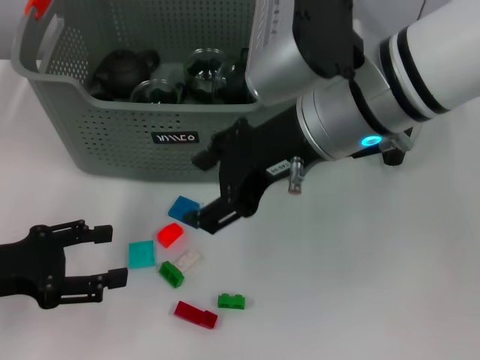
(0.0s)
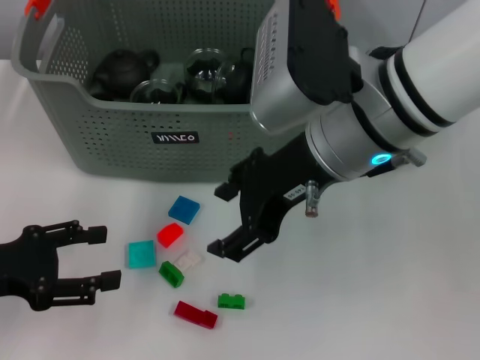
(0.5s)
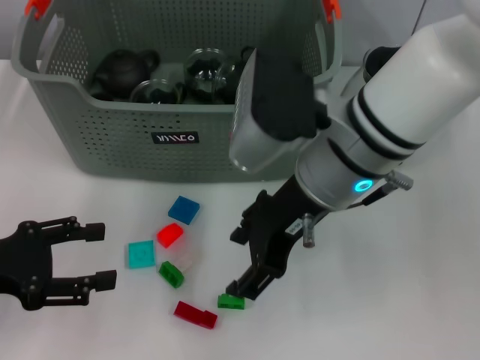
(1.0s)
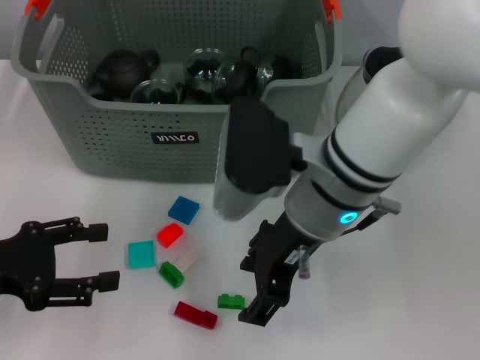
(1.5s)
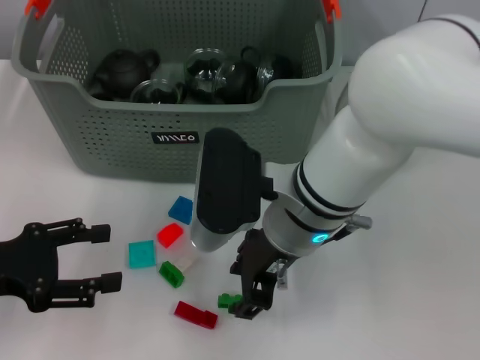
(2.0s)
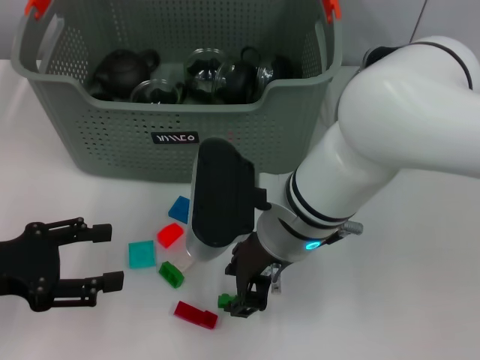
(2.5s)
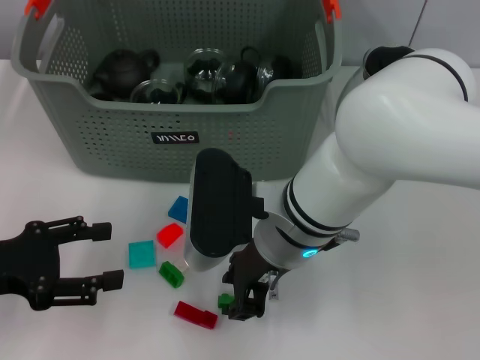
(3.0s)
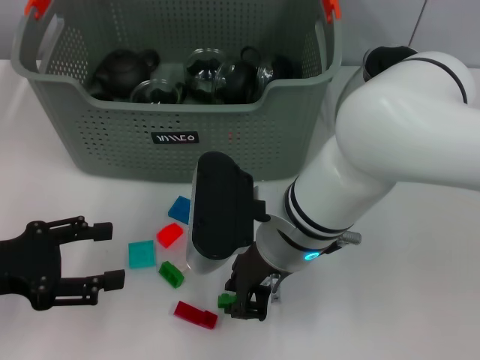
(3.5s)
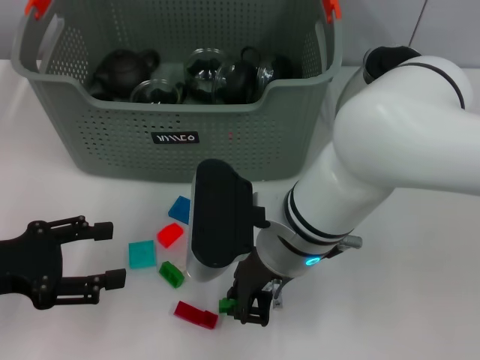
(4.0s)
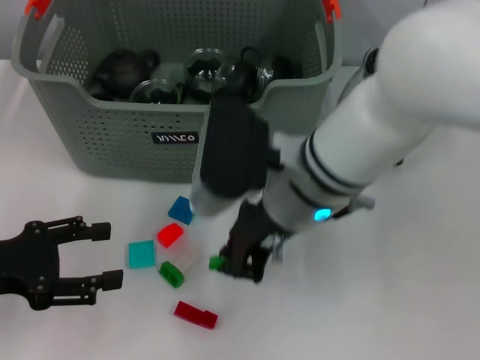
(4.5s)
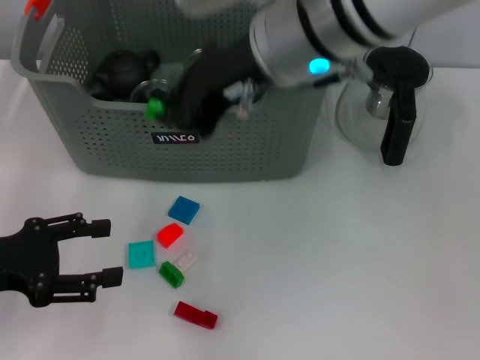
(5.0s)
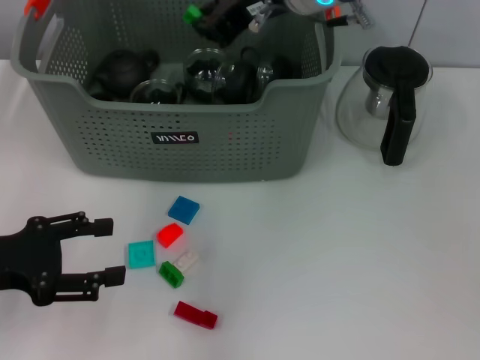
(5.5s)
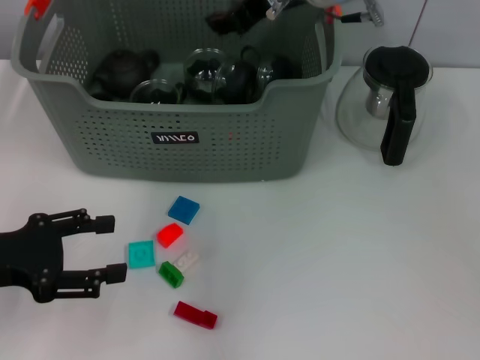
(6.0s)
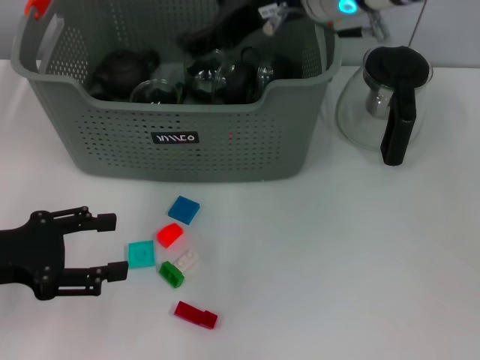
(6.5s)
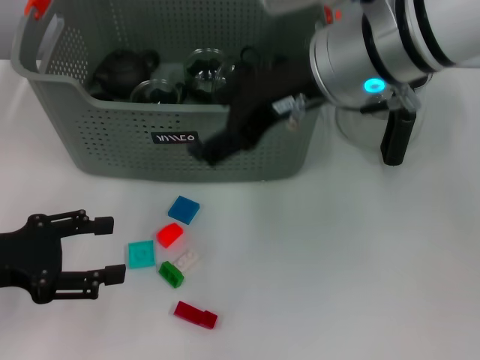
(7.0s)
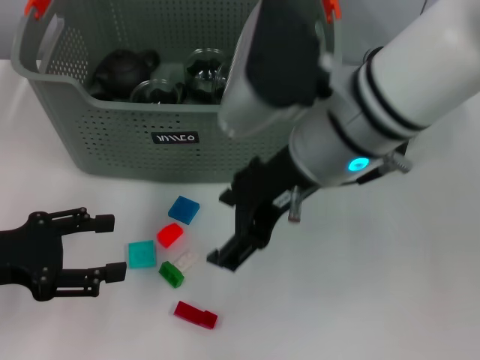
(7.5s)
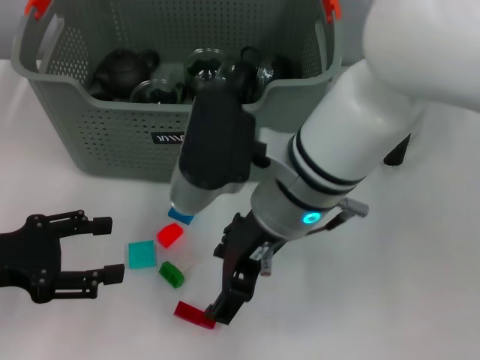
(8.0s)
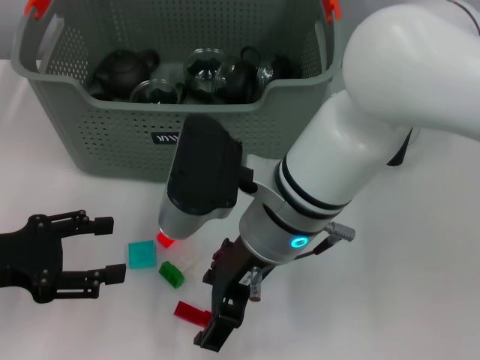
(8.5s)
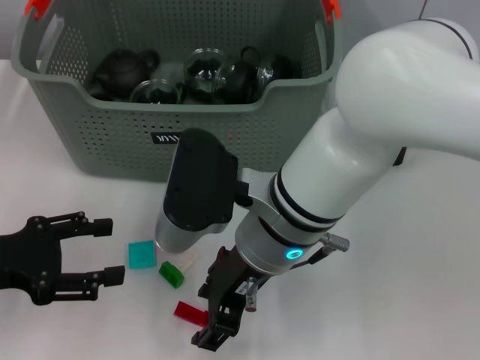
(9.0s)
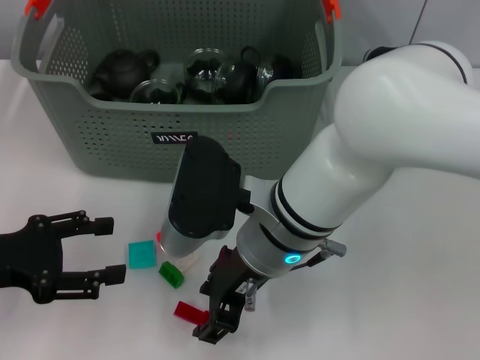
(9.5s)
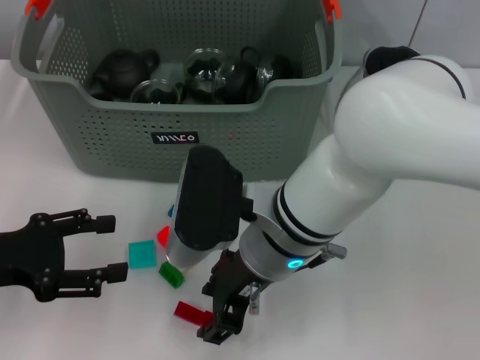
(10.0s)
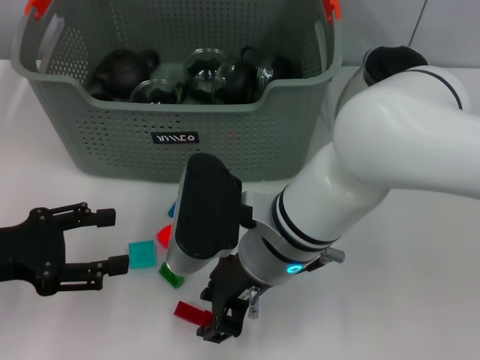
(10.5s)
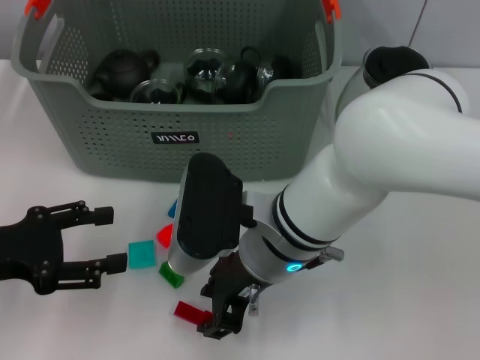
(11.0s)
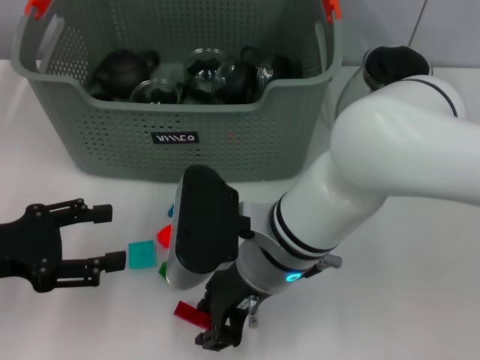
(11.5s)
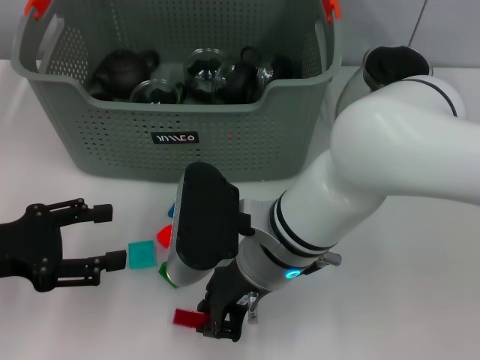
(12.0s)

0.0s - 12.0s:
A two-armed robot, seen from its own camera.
Task of the whole recording: pick up the teacup on the table and place it into the storage bin, pick up the block on the table and place it into the storage bin.
Step, 0.0s - 3.5s: Grasp the green block with right gripper.
Step, 4.0s - 5.5s: Place the green block in the storage box with right gripper.
0.0s - 2.0s: The right gripper is displaced downward by about 10 cm.
2.0s - 4.0s: The right gripper closes.
4.0s - 6.0s: The right gripper is displaced upward and forward by approximately 20 cm.
6.0s - 8.0s: The right gripper shifts about 15 cm backward and downward, and opens.
8.0s - 10.0s: The right gripper moves downward, roughly 5 cm.
10.0s - 12.0s: The two grippers keep their place.

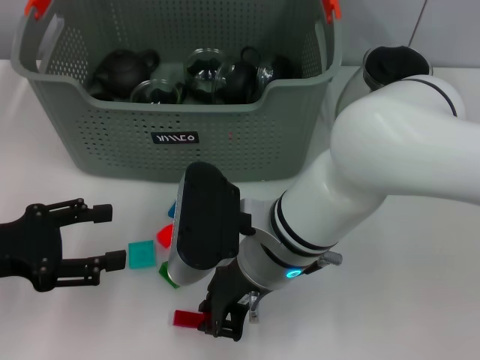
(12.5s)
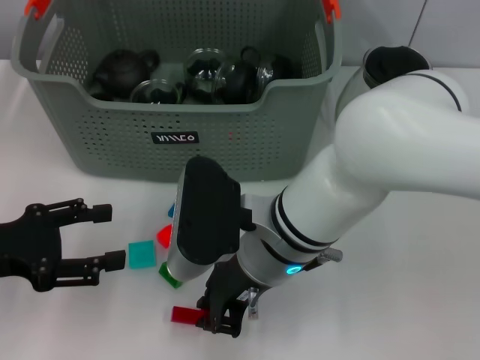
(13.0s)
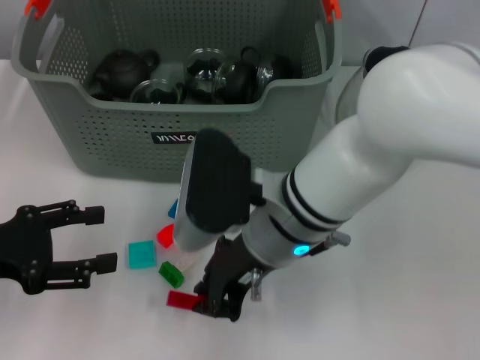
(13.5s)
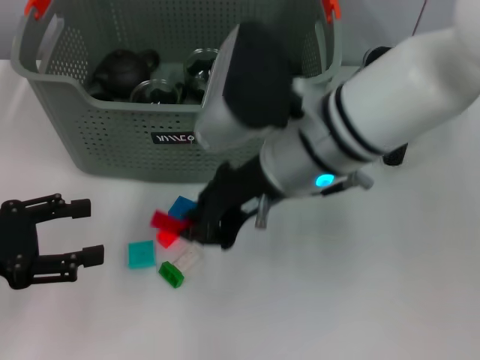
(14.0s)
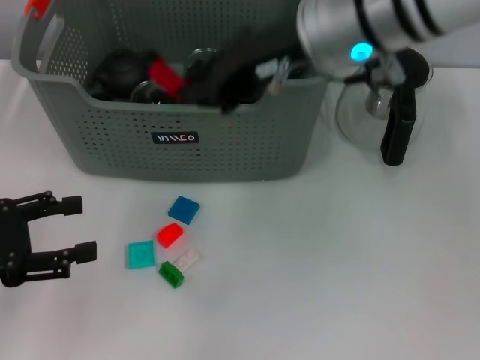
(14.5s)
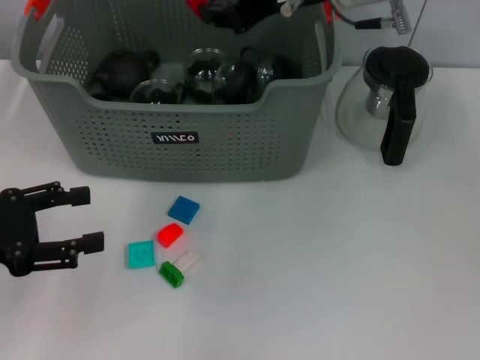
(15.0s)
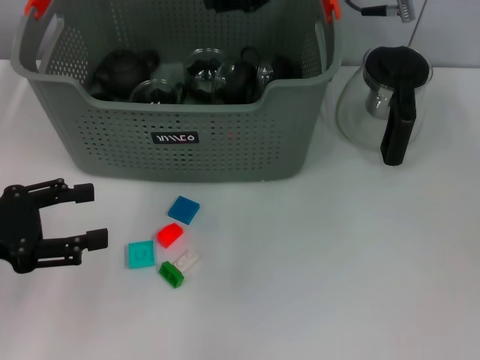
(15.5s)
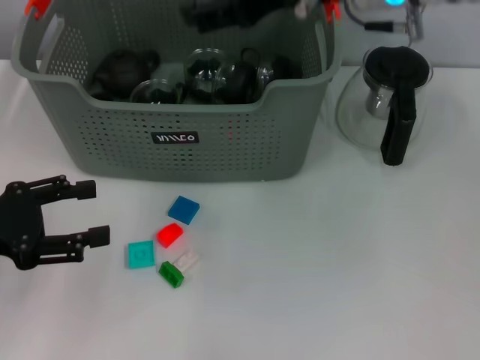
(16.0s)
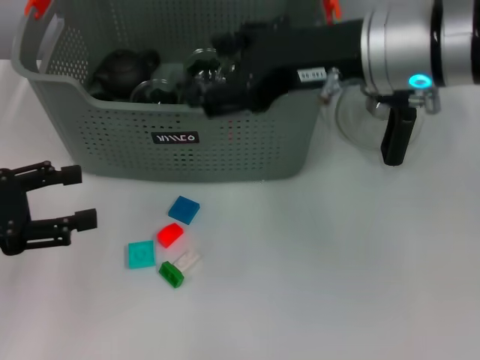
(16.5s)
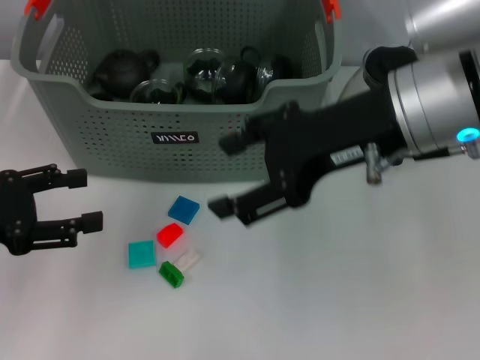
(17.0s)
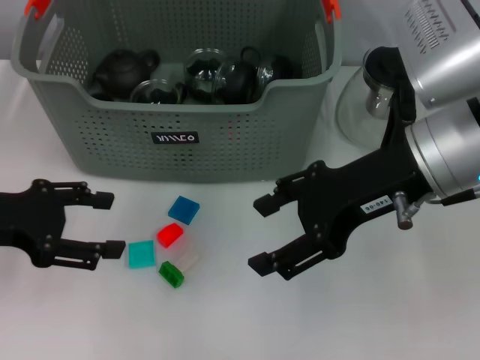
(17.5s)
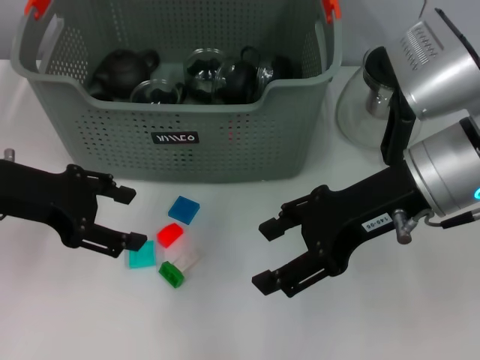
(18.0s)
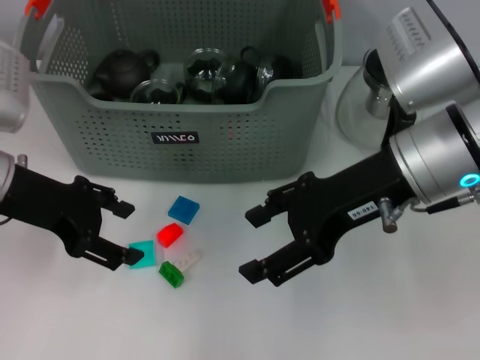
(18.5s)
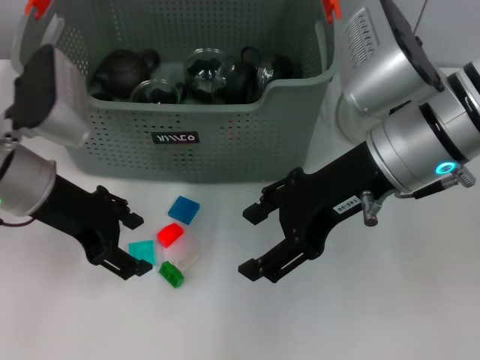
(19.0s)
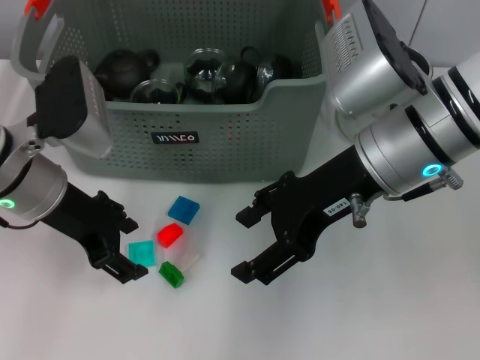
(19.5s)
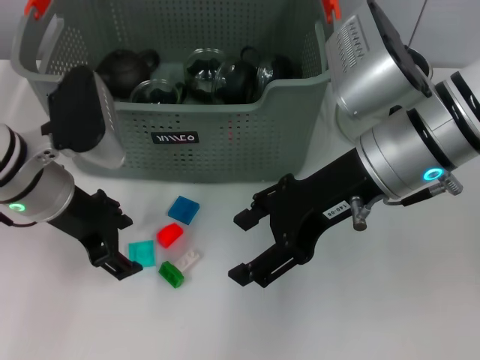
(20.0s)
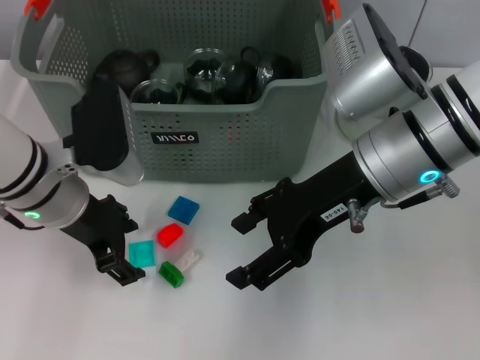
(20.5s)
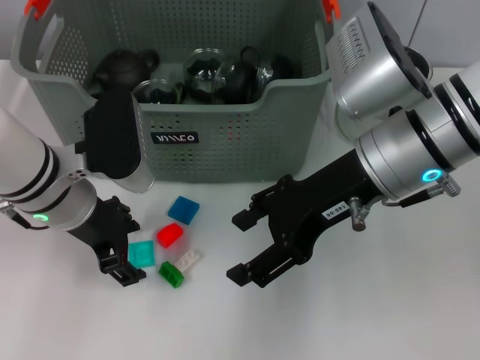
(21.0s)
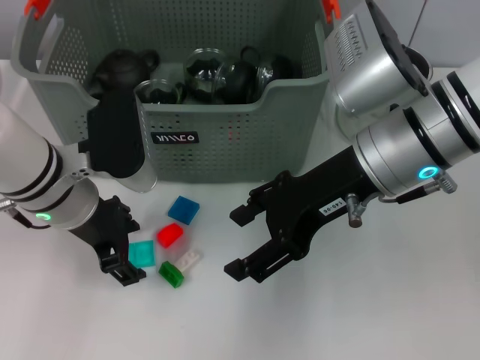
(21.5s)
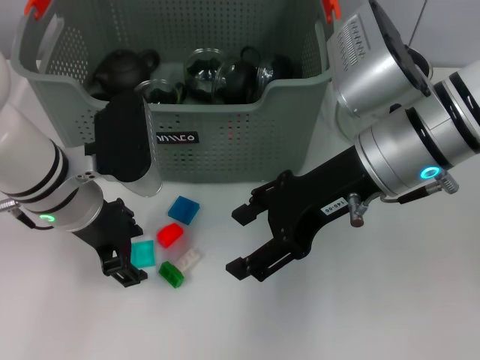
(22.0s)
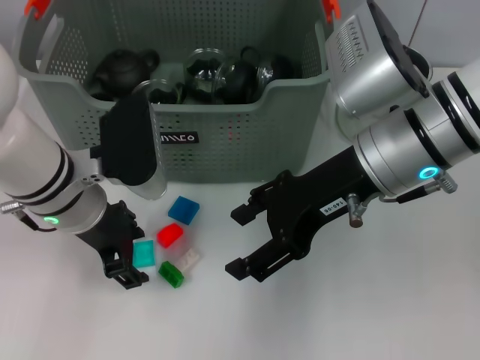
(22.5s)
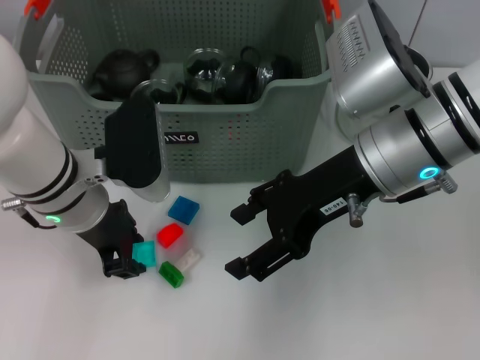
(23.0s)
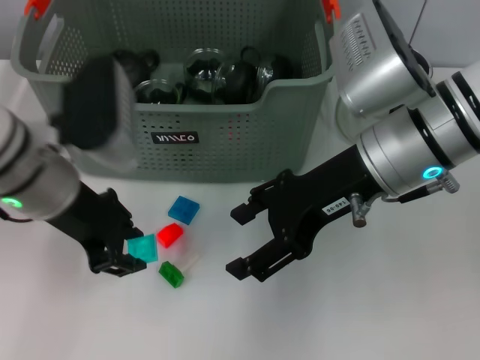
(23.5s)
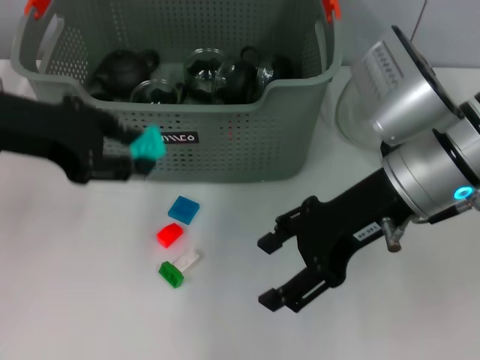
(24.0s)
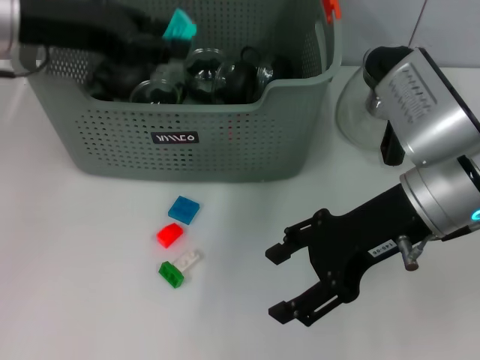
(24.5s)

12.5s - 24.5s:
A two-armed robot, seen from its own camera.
Task of the whole recording: pick up the teacup on the table and place it into the storage bin, pick up the block on the table and place it into the storage bin.
Step, 13.0s - 15.0s: Place the red block in the storage box with right gripper.
Step, 16.0s - 23.0s: Grasp the light blue block with left gripper.
12.5s - 14.5s: The right gripper is displaced upward and forward by roughly 15 cm.
14.5s - 16.5s: The right gripper changes place by approximately 5 cm, and opens.
16.5s - 18.5s: The right gripper ends up some 5 cm from where it was. Meanwhile the left gripper travels to the right and forward by approximately 10 cm.
18.5s - 20.5s: The left gripper travels to the right by some 5 cm.
20.5s - 22.5s: The grippers make only small movements.
22.5s - 24.5s: The left gripper moves upward and to the left, some 15 cm.

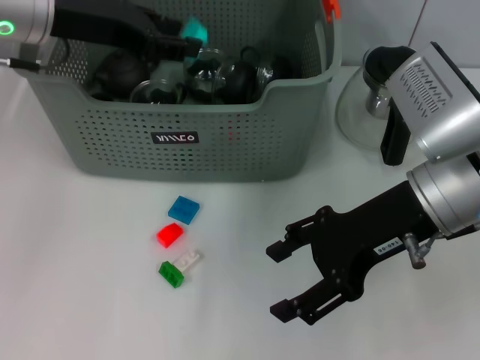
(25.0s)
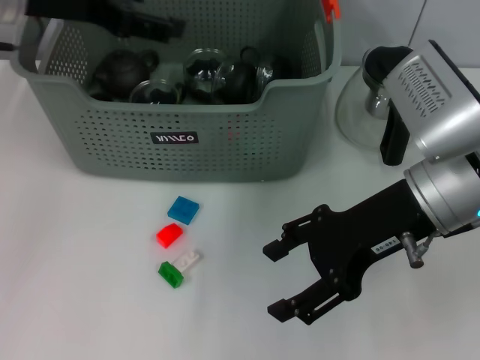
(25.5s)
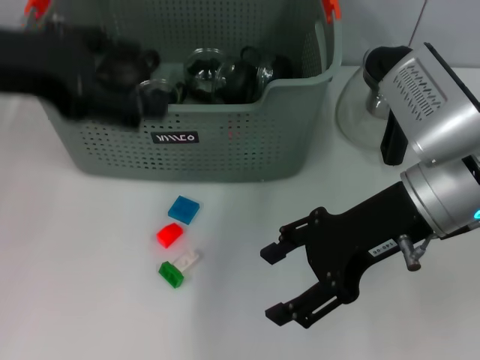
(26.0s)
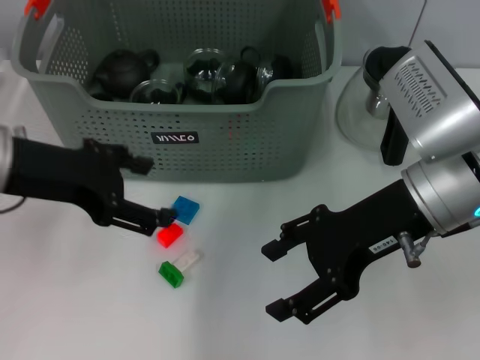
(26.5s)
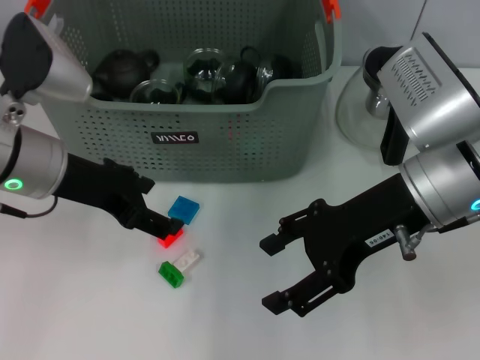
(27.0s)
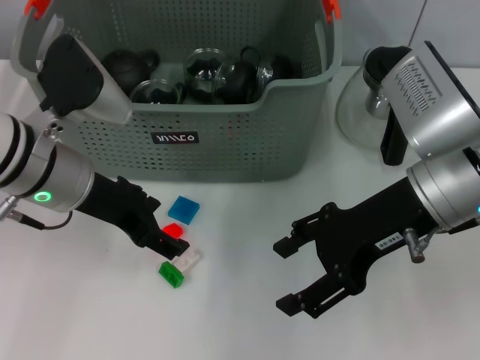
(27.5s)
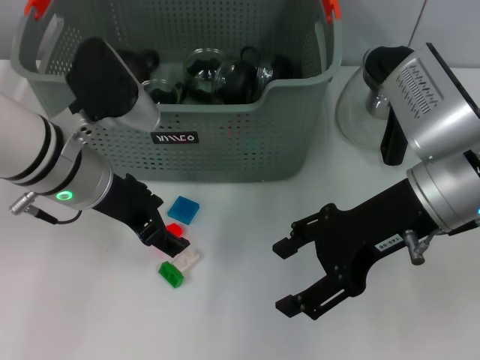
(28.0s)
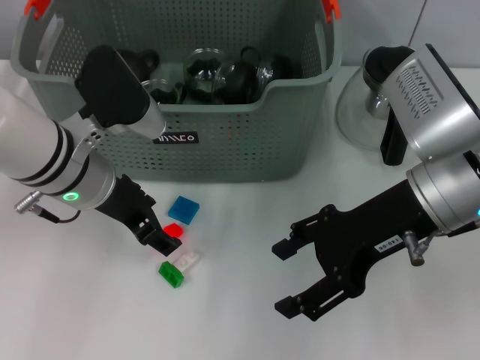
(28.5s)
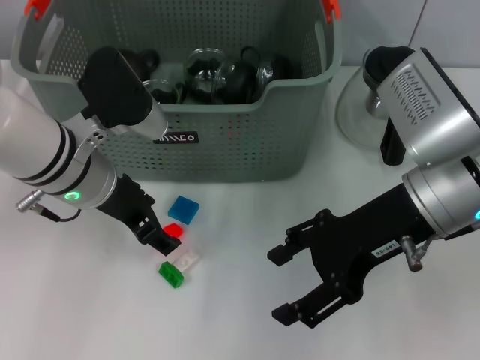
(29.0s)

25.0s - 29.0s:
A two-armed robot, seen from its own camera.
Task of the whole recording: pick up the teacup on the table and place it into the storage bin, pick up the block on the table and place it into the storage bin.
25.0s - 27.0s: The left gripper is displaced downward and backward by roughly 10 cm, and opens its fingers.
27.0s - 29.0s: The left gripper shifts by approximately 5 cm.
